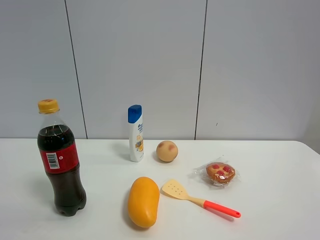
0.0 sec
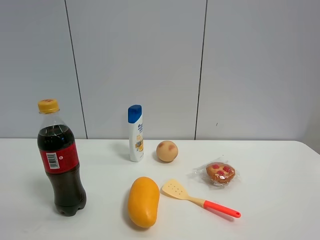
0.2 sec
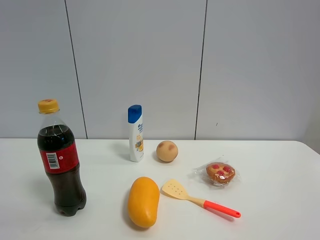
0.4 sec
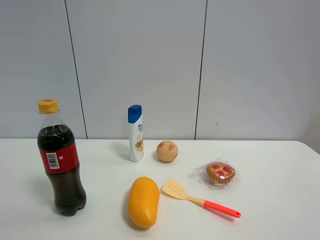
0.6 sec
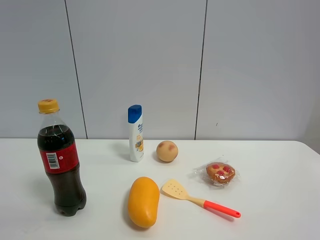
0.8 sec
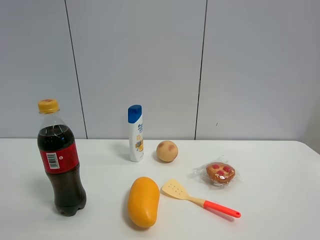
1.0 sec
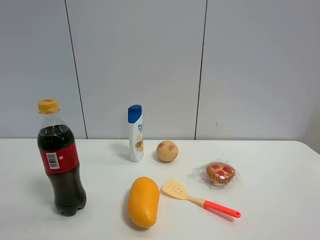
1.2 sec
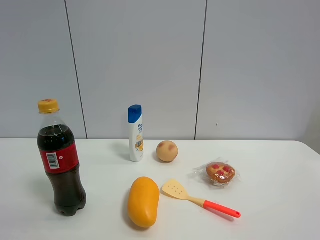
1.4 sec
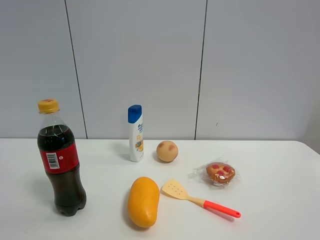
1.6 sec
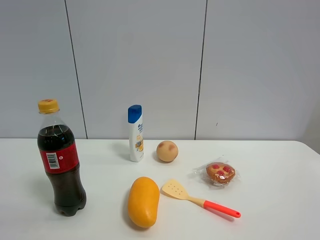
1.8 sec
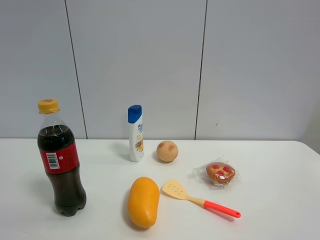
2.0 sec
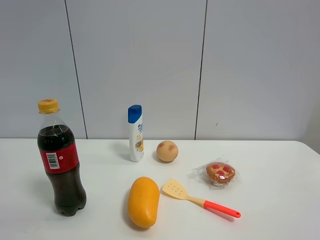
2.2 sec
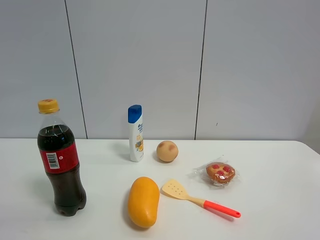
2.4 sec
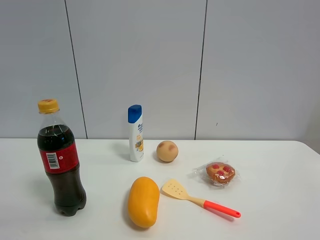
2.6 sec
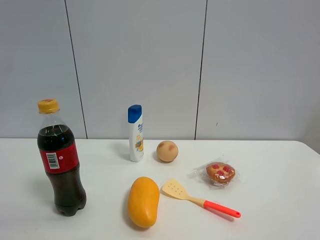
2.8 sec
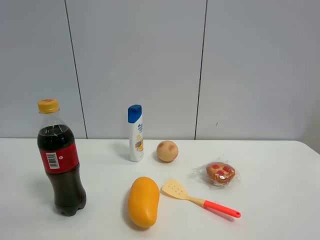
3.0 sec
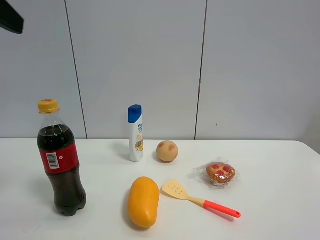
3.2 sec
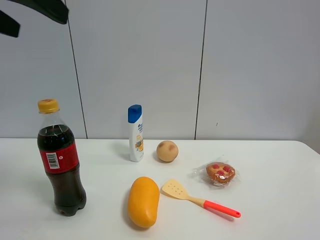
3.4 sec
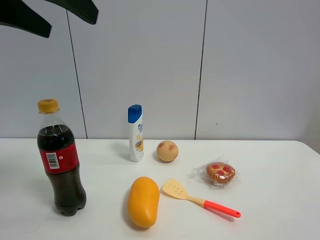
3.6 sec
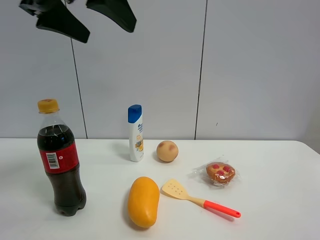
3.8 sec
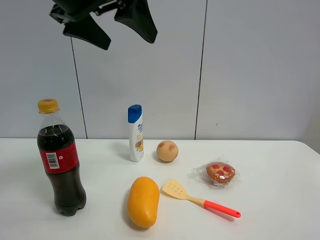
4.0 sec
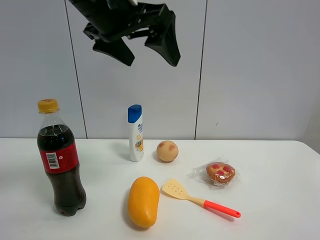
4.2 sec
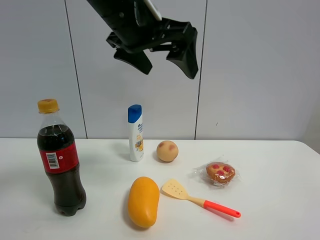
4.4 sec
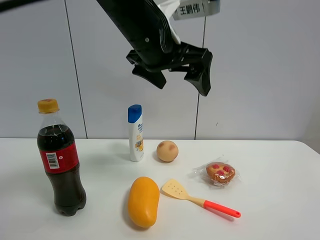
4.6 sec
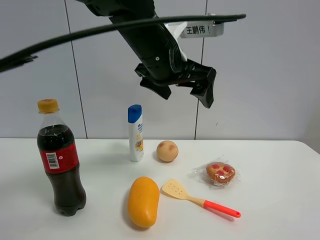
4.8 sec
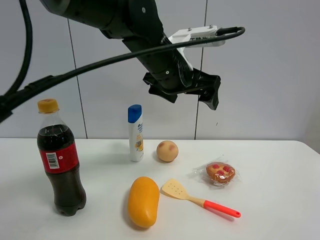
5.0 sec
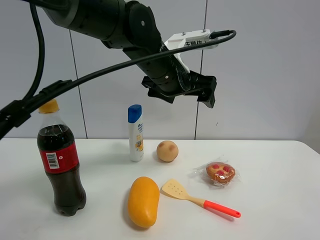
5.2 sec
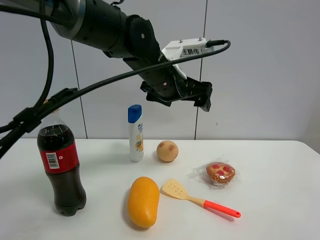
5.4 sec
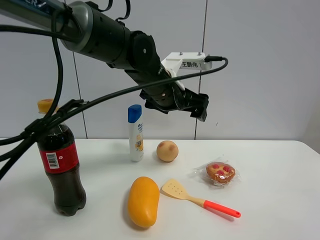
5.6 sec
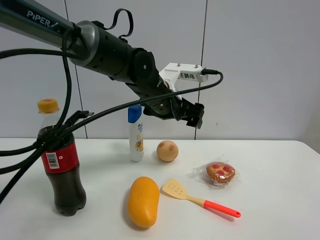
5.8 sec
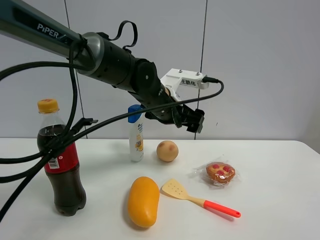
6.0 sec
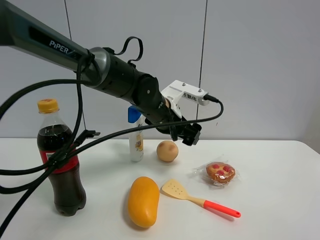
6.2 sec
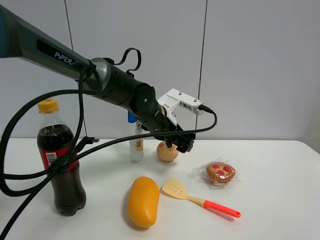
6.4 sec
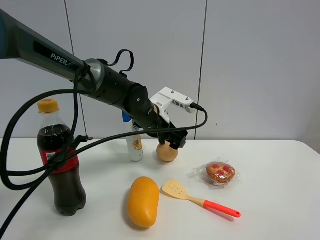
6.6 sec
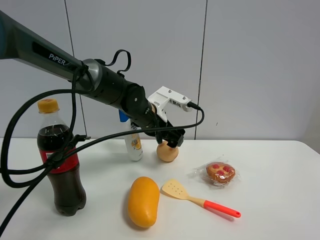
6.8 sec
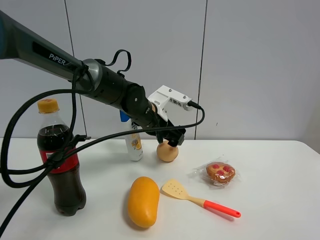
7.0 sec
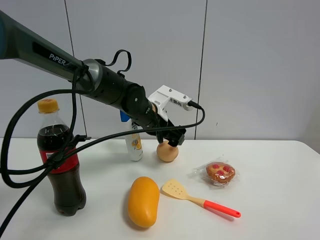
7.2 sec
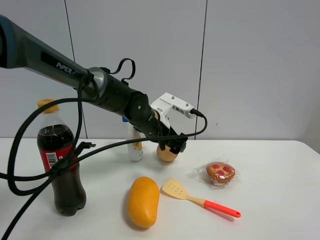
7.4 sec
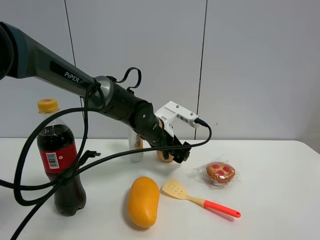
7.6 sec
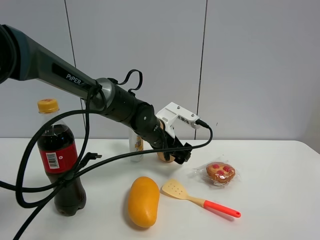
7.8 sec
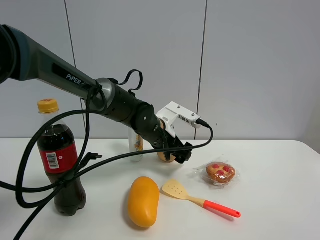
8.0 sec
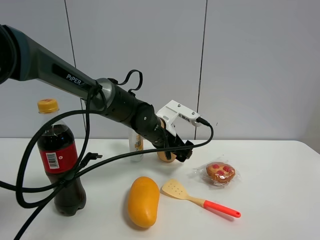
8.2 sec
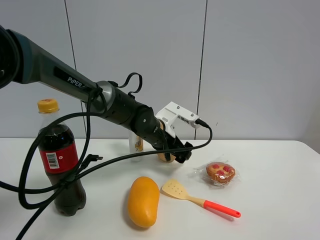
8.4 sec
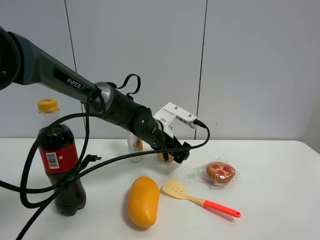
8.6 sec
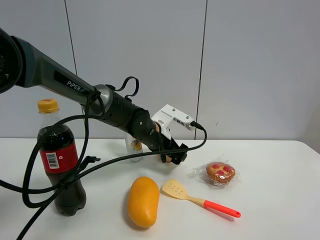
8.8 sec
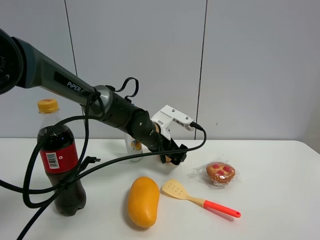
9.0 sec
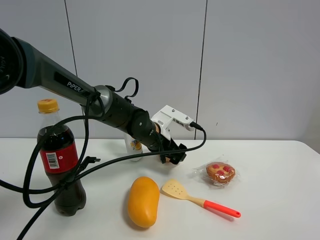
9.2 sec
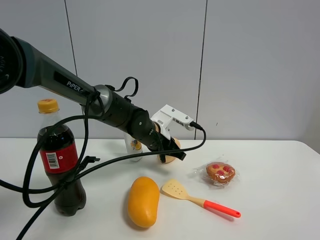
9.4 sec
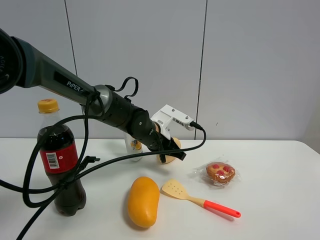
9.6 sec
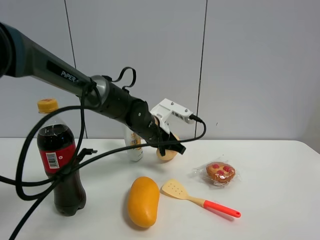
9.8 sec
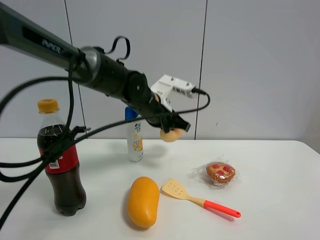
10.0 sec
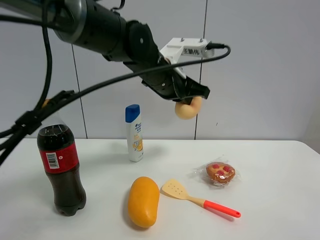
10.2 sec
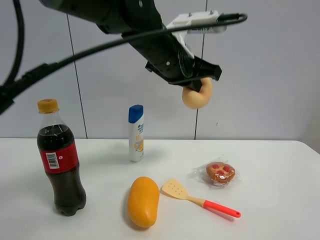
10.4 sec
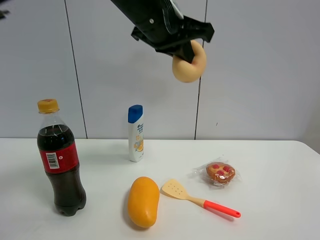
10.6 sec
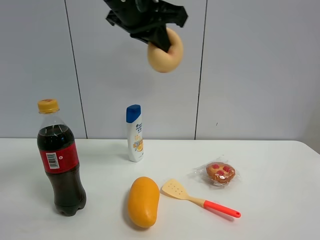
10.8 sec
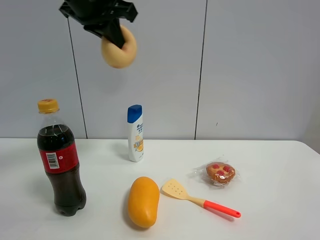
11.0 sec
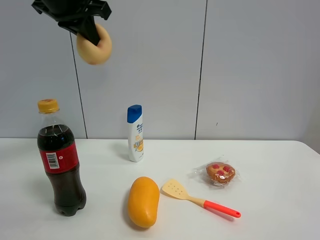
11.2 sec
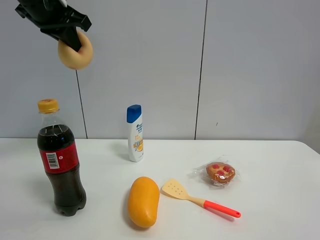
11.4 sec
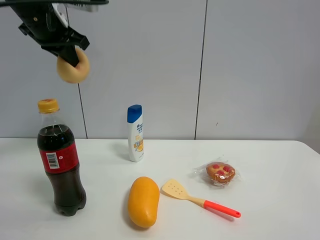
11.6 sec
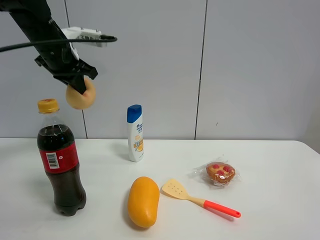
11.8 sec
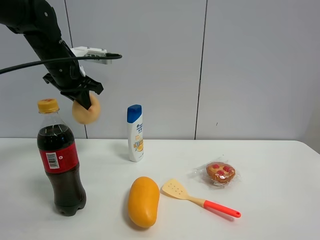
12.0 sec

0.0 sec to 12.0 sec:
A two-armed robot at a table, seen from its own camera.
Task of the whole recording: the gripper move the object.
Step, 0.0 sec to 9.4 sec: Grasp the egg yolk pastry with the left gripper.
0.0 sec to 1.6 sec: Both grippers stay about where they are.
3.0 sec to 4.4 sec: The left gripper goes some 30 cm to the right and forward.
4.4 sec to 6.0 sec: The left gripper shifts about 20 cm downward and forward.
6.0 sec to 7.6 sec: The left gripper moves downward, some 5 cm.
7.6 sec to 9.0 sec: The grippers move only a little.
9.0 sec to 10.4 sec: The left gripper is displaced upward by some 20 cm, and closes.
10.4 sec to 12.0 sec: The left gripper heads to the left, covering some 20 cm.

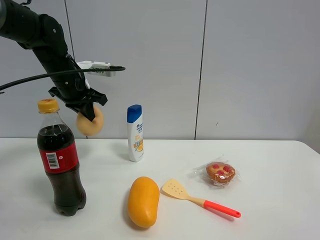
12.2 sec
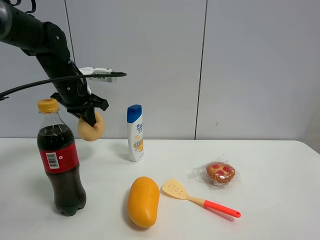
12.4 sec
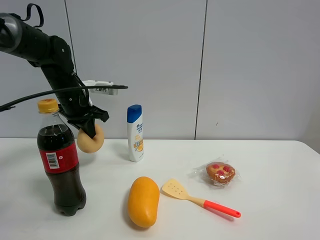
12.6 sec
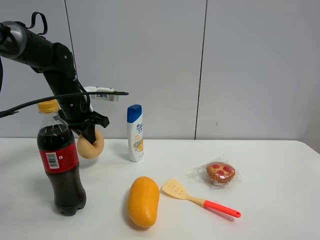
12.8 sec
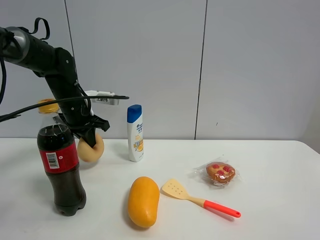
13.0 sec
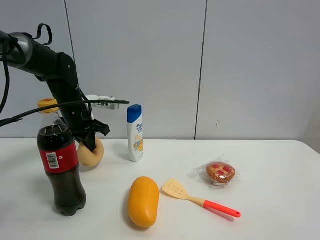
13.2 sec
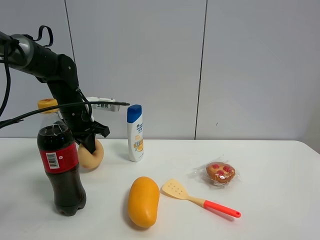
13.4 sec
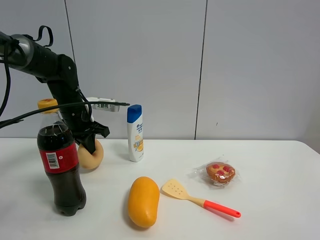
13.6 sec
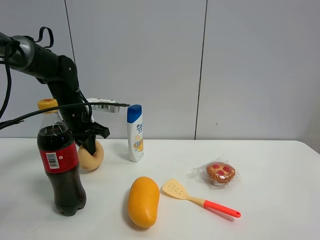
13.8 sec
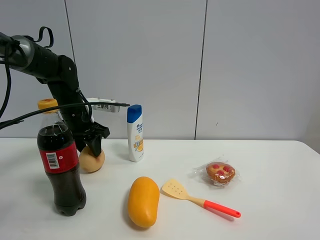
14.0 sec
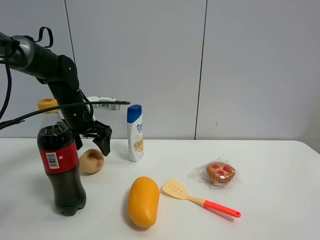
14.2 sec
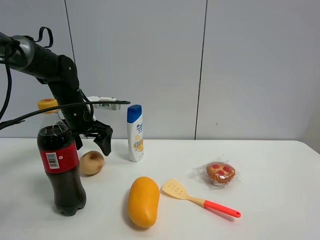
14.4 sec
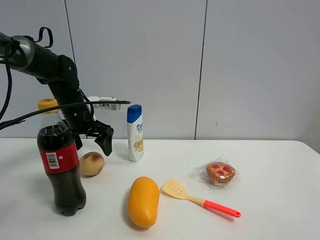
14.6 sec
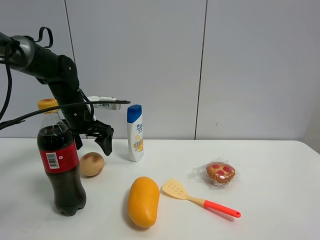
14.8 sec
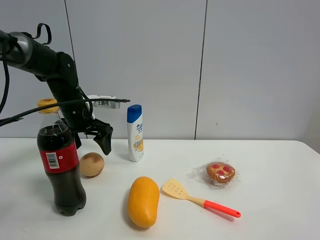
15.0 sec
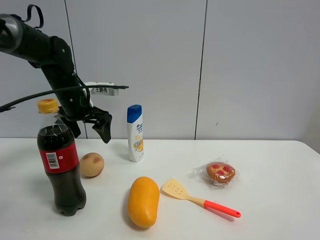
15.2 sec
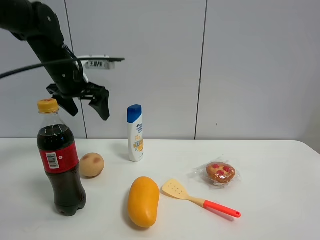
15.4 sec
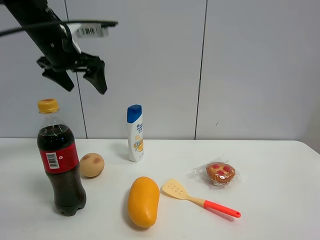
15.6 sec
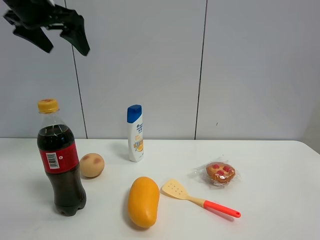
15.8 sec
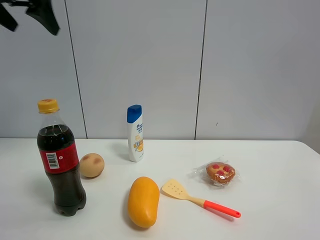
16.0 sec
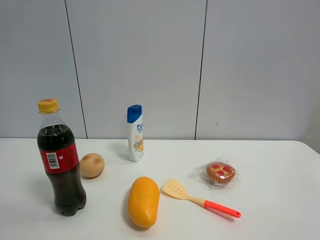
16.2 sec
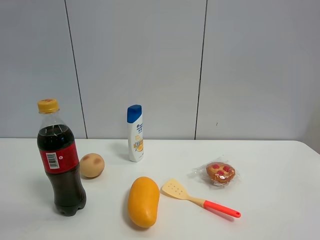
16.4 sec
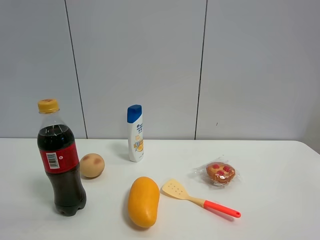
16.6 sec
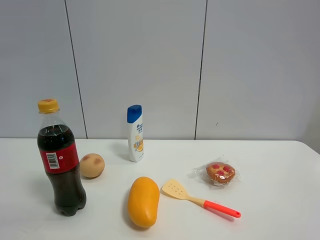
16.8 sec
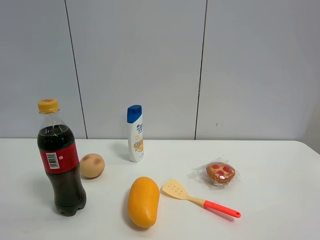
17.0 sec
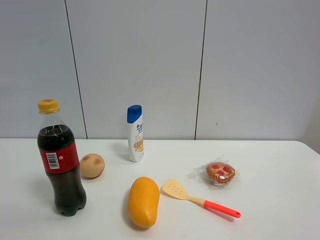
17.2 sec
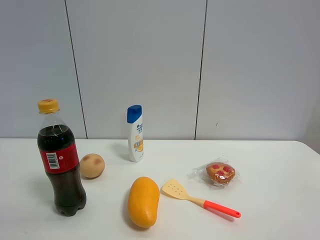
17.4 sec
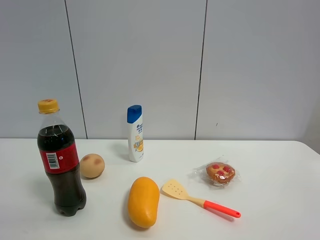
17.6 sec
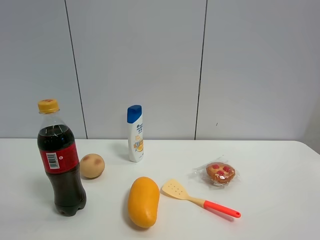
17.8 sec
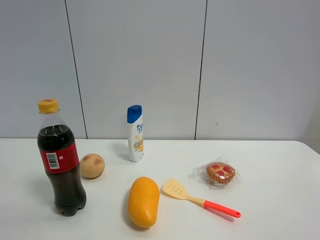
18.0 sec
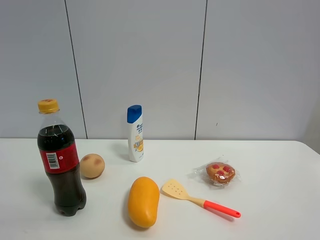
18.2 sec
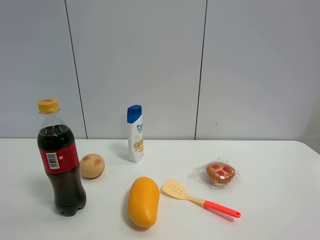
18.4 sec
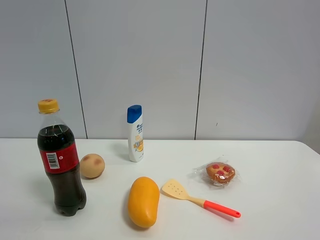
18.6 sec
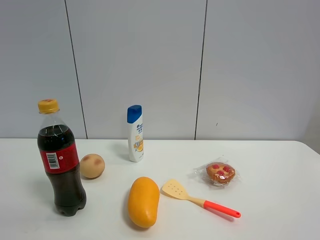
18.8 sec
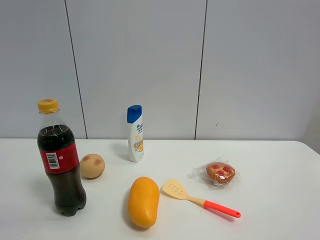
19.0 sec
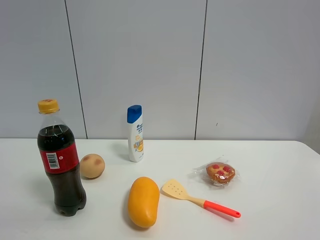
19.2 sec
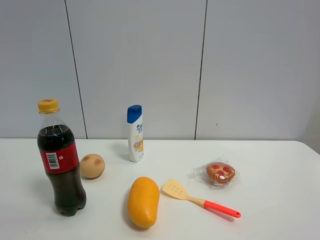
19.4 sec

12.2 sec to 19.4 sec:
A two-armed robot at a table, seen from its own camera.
Task of the whole recording: the gripper move the object.
Step, 12.2 sec to 14.2 sec: Place the egg yolk pastry on the table with the left gripper.
12.2 sec to 13.6 sec: The left gripper heads downward, covering some 10 cm.
13.6 sec to 15.0 sec: The left gripper opens up.
15.0 sec to 16.6 sec: The left gripper goes some 40 cm upward, backward and to the left.

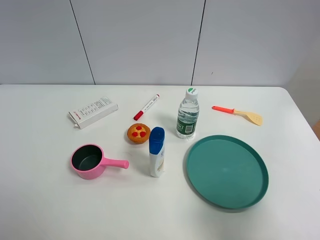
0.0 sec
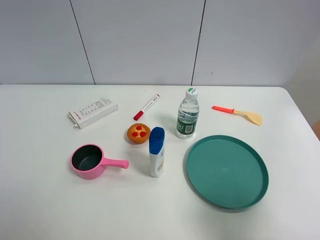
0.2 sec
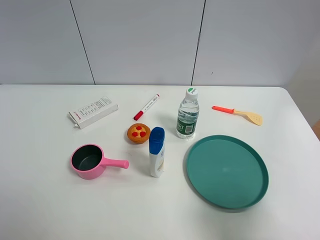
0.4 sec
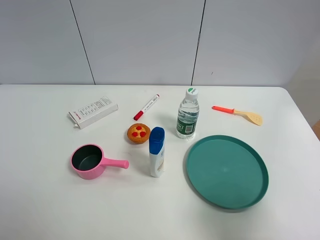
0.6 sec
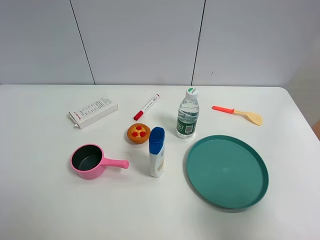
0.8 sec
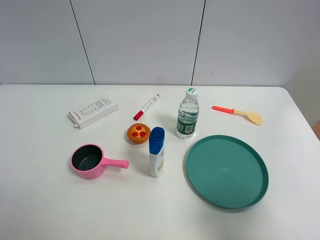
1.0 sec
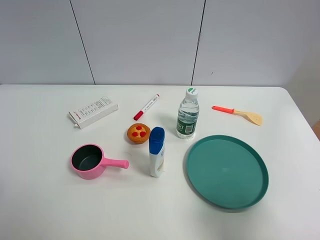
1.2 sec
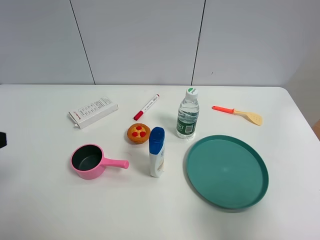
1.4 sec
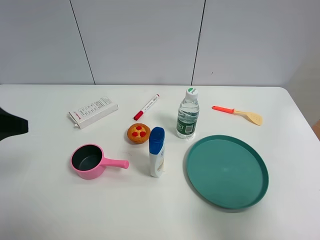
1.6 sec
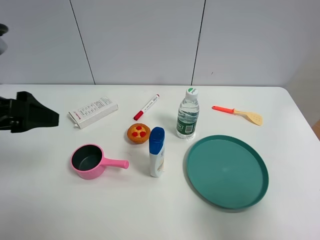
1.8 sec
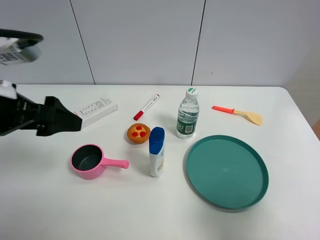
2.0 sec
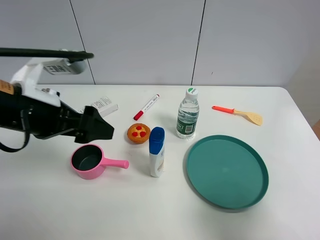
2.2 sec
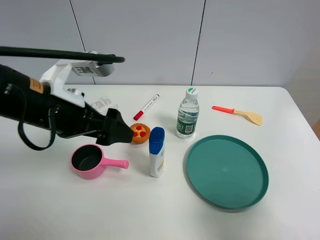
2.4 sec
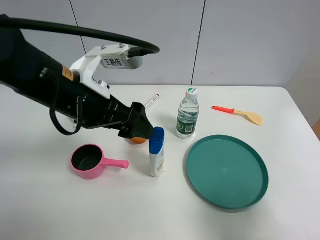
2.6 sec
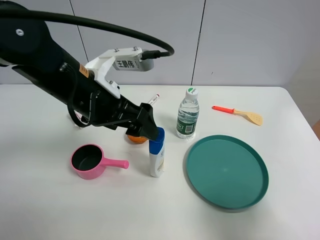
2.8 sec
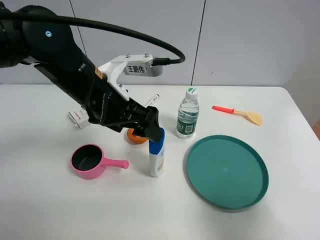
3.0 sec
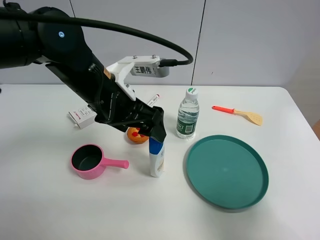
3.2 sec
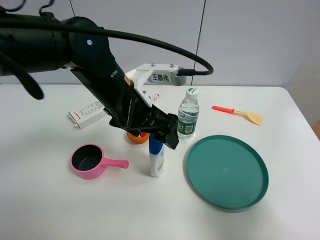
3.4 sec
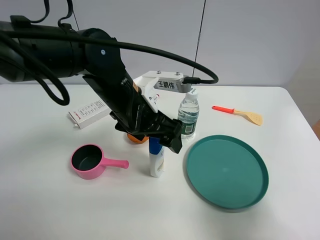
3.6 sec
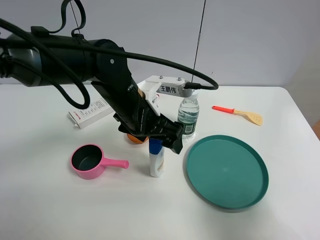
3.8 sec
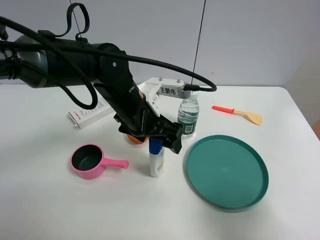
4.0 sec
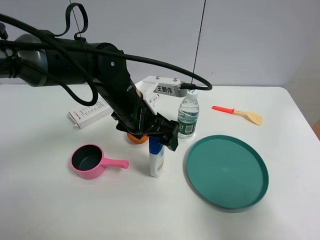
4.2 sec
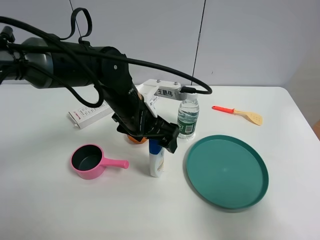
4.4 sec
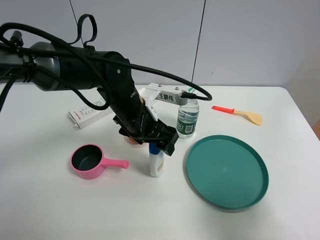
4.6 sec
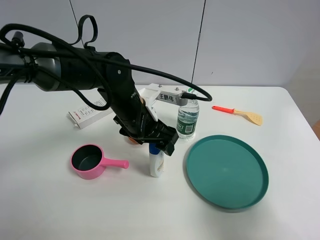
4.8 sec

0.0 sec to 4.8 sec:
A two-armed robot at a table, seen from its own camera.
Task of the whole recording: the gripper move the object.
0.0 sec to 1.6 sec: The left gripper shifts about 15 cm forward.
1.6 sec to 3.2 sec: The left gripper travels to the right and forward by roughly 25 cm.
3.2 sec to 4.8 sec: The left gripper heads downward, covering roughly 5 cm.
